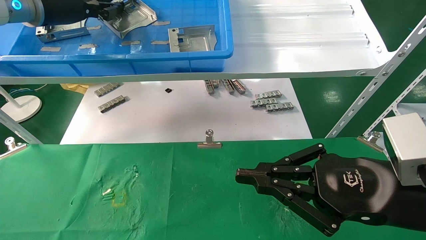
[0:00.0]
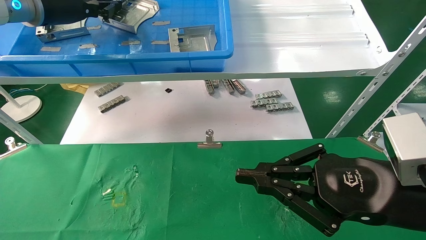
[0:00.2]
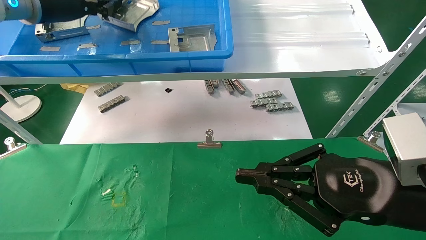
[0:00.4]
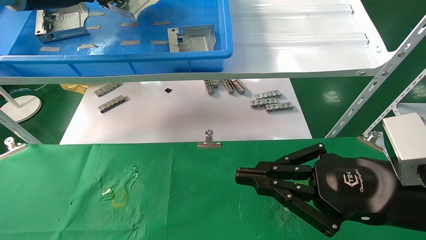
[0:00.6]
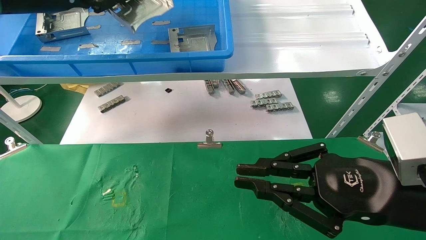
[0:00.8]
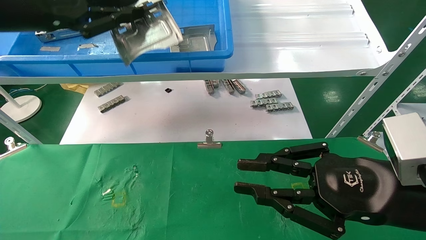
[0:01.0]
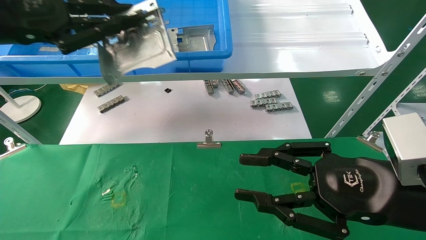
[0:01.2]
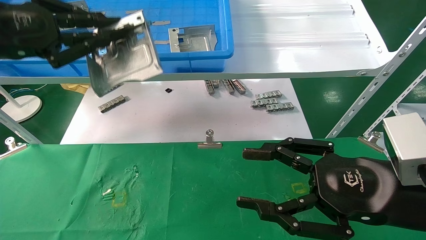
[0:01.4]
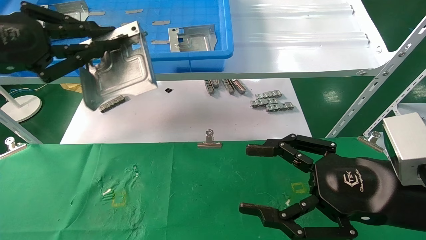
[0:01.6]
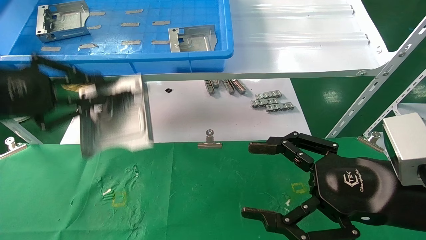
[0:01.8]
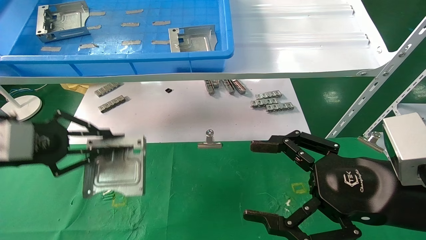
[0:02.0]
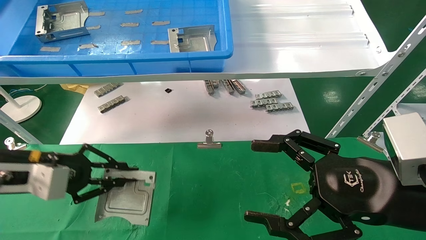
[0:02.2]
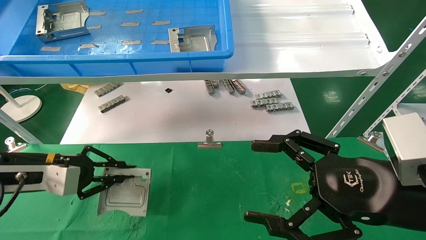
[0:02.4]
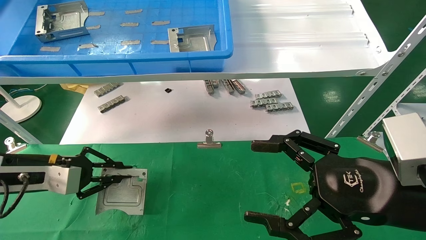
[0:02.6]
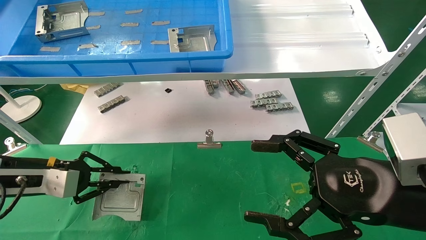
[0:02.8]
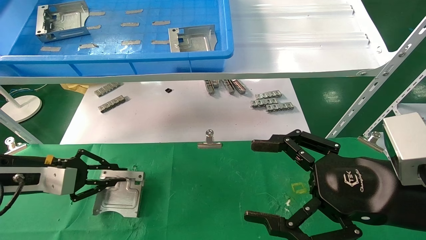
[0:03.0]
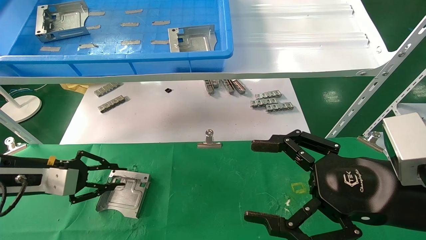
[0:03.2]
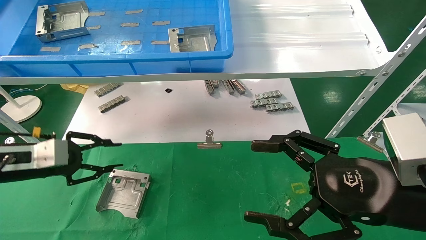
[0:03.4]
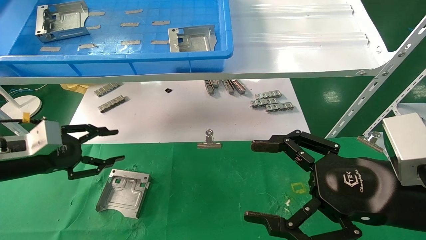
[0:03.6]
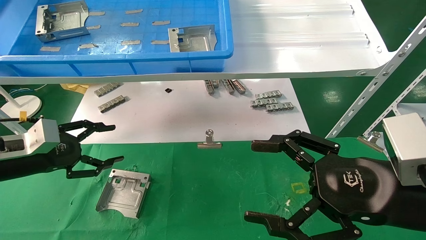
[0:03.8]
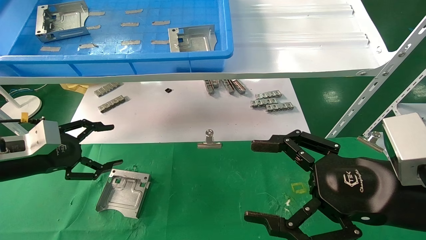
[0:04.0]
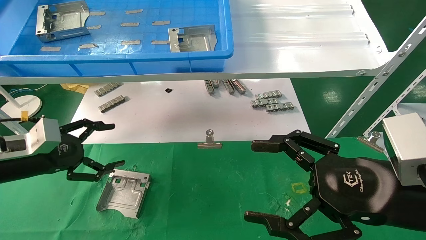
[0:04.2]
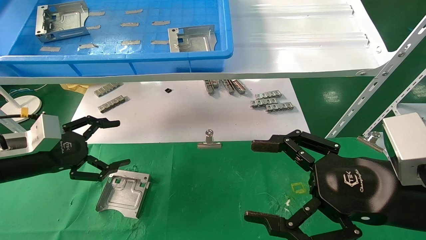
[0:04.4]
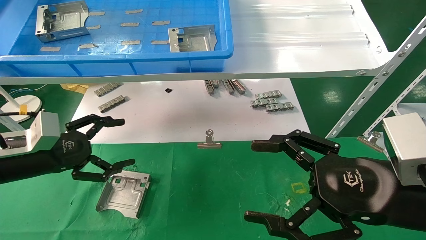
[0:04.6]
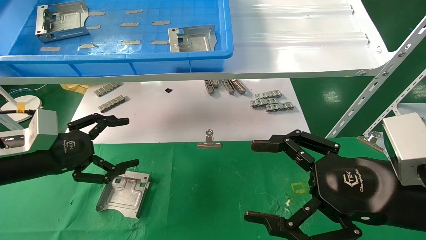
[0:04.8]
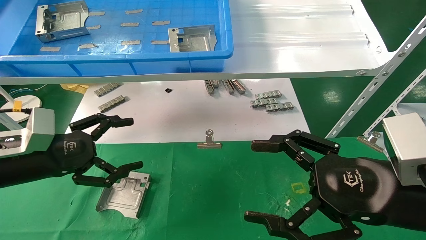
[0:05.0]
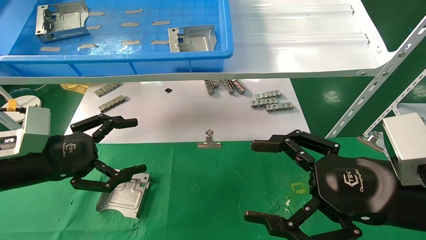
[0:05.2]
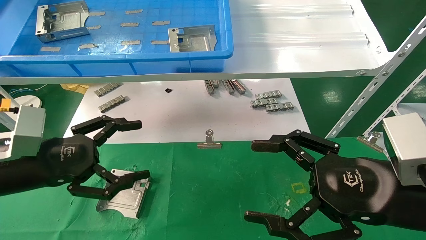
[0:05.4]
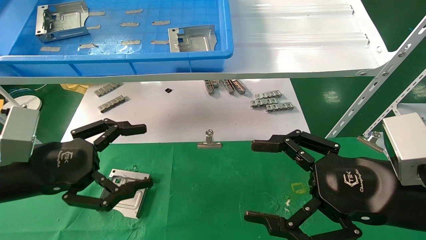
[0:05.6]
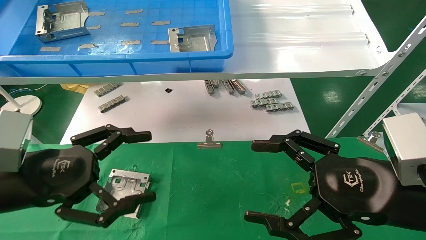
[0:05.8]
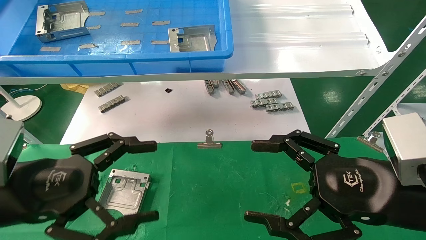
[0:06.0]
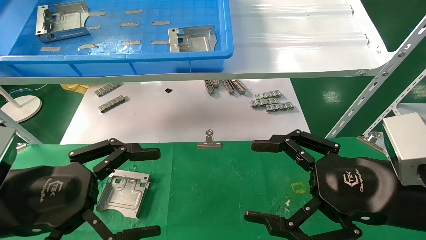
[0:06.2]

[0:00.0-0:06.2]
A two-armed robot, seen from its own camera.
Task of the whole recording: use the mechanical arm to pick up the parts and place them on the table.
Step, 0:00.4 to 0:03.4: Place the hard drive bracket into the box.
0:00.0 to 0:01.6: The right gripper opens up. Meanwhile the left gripper shifts some 20 cm backward and downward.
0:01.6 to 0:03.2: The left gripper shifts about 20 cm downward, while the right gripper opens its fingers.
0:03.2 to 0:04.6: The left gripper opens up.
0:04.6 to 0:06.2: The left gripper heads backward and to the right, covering roughly 15 cm.

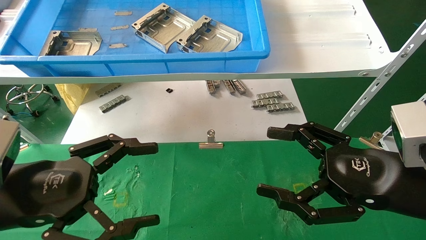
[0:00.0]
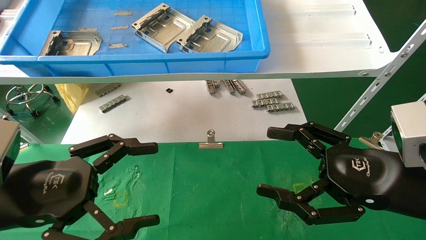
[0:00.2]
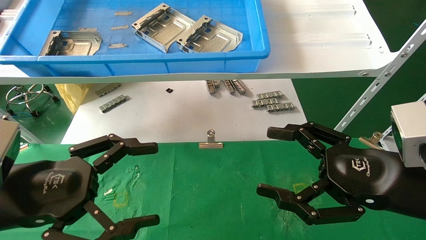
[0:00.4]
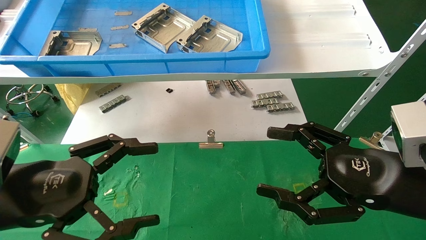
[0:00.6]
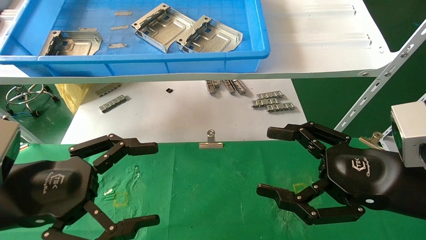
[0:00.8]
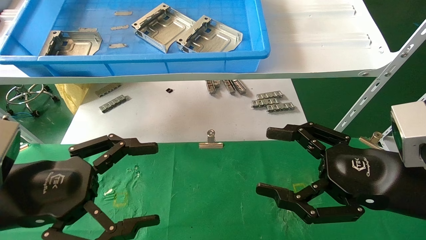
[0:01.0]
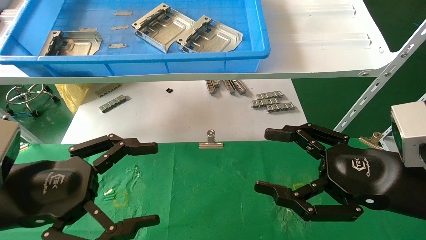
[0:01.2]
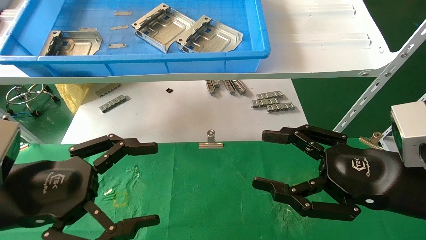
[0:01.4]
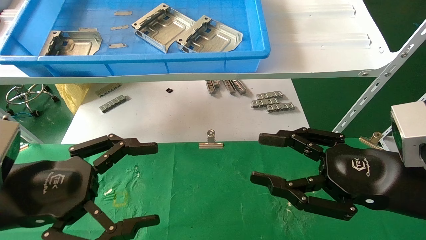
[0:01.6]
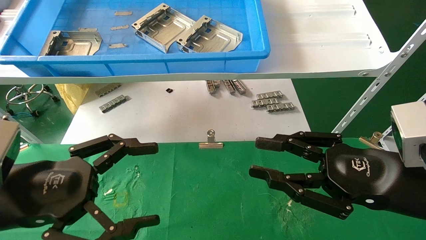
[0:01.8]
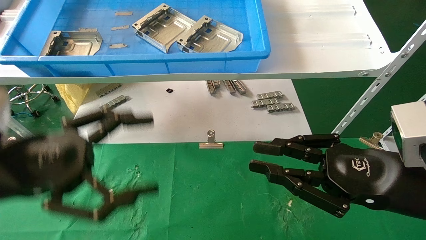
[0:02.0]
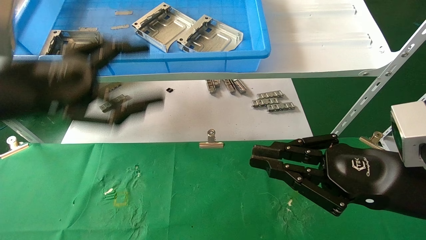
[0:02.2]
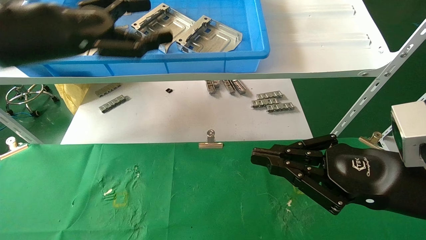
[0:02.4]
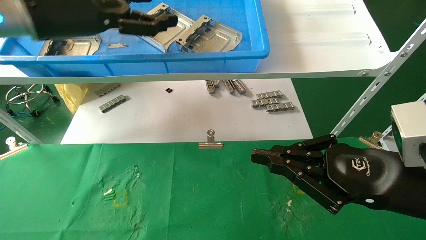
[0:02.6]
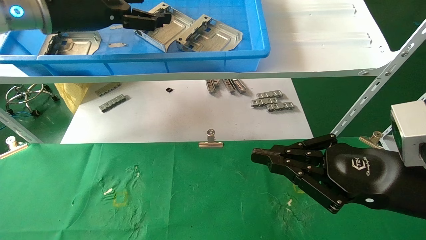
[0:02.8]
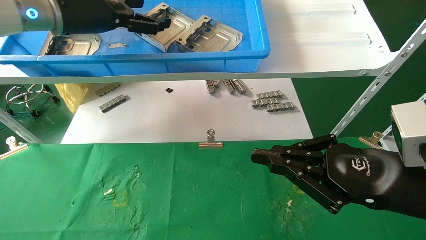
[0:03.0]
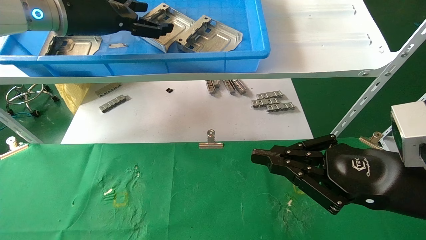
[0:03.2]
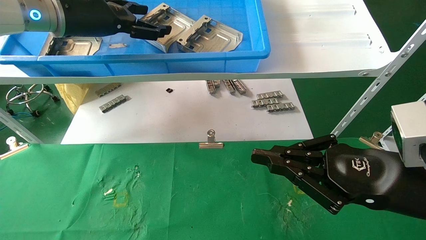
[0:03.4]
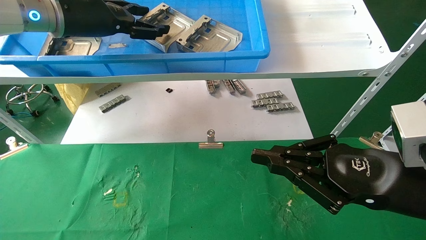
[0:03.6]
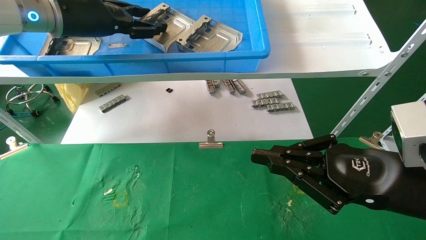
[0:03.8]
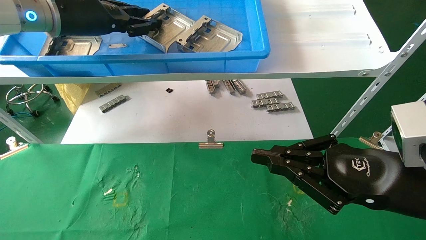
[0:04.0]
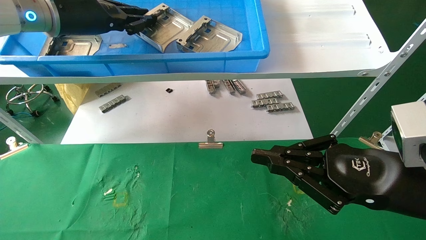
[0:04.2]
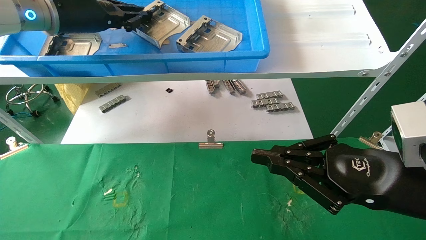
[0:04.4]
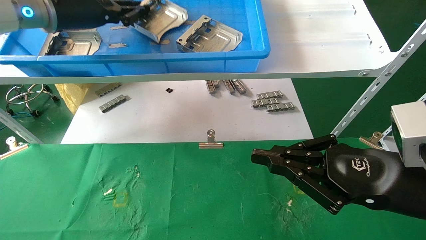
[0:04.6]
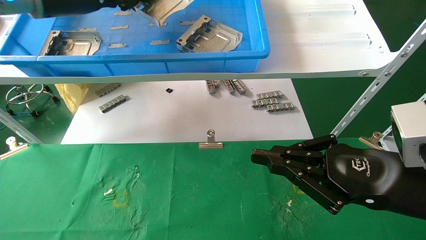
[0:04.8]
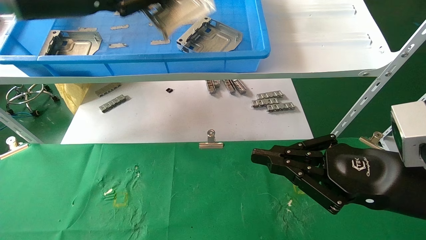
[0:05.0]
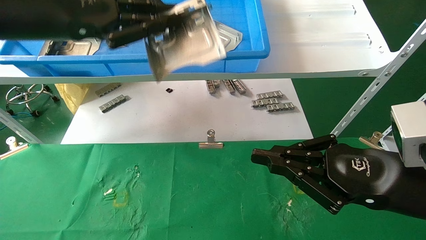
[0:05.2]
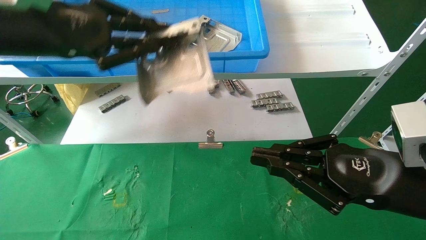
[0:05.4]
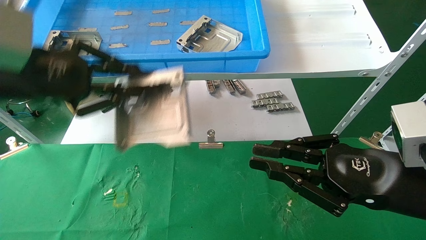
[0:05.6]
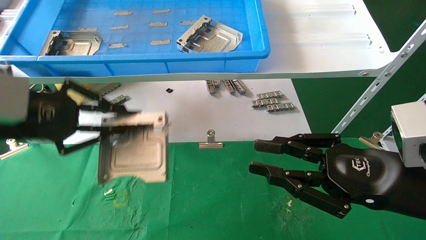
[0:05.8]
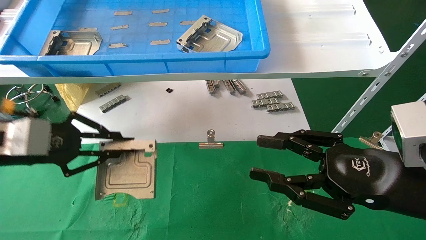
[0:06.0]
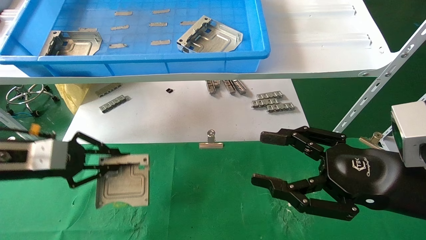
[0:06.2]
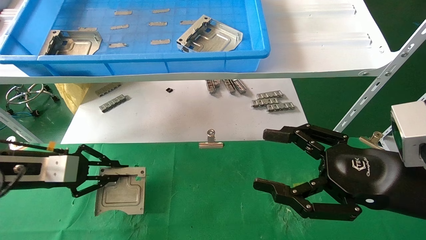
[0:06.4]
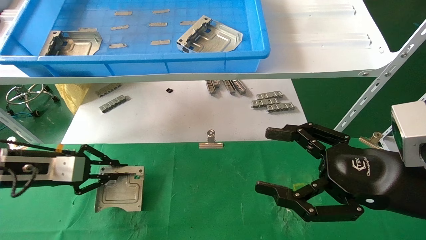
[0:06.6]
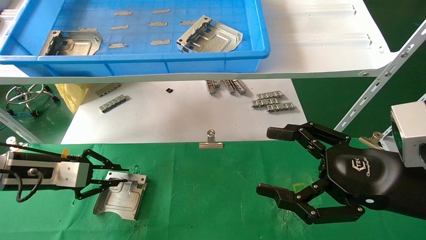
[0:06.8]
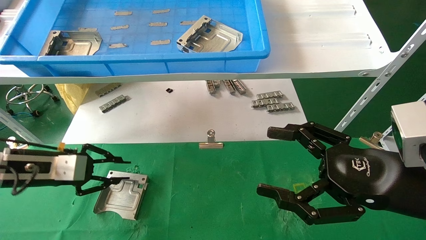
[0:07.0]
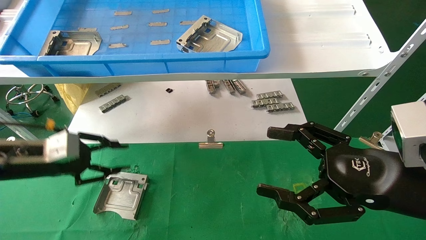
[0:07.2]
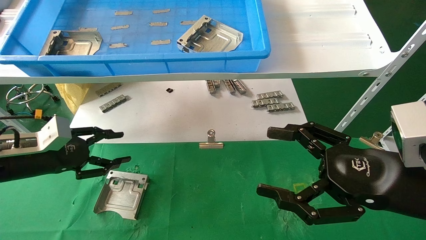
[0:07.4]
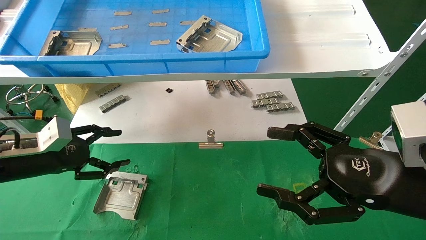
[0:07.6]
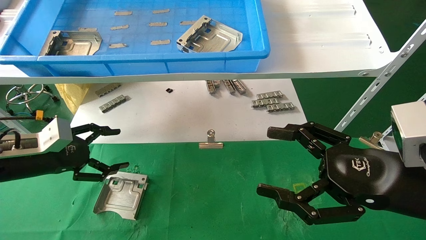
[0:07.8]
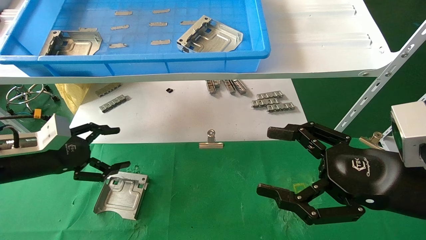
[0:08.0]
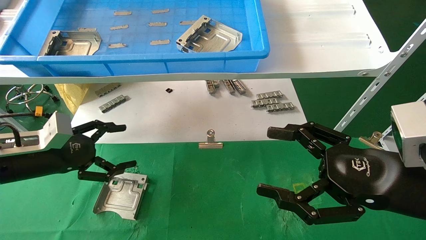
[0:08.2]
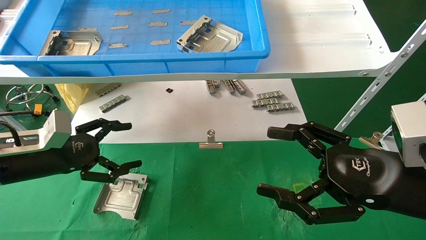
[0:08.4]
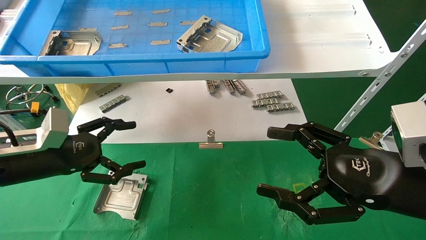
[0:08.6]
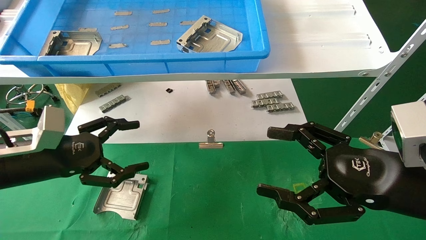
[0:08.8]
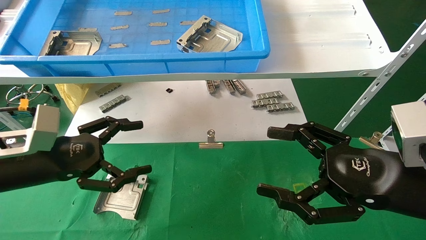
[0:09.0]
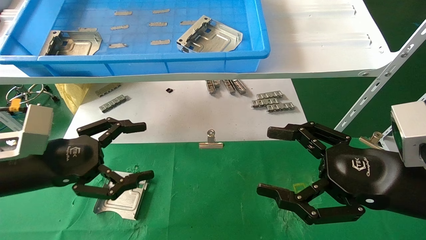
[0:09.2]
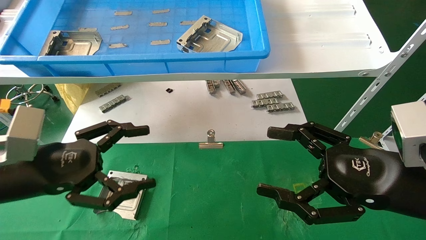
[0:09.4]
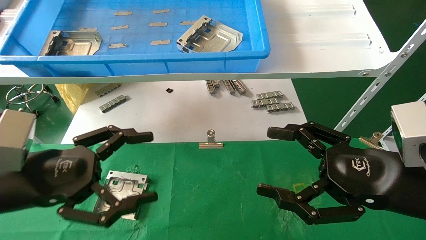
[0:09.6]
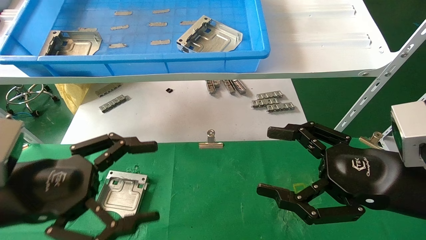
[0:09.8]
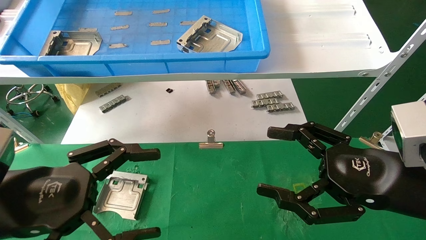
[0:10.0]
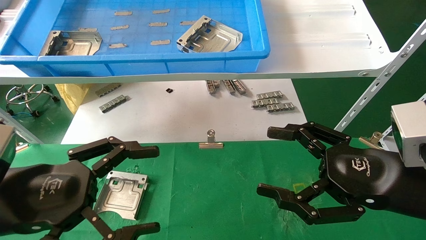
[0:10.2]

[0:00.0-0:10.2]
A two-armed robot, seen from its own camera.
Task of the whole recording: use the mechanical arm to pick up the parts and place them on the table.
Step, 0:02.2 to 0:04.4: Pick up the hard drive bracket from the feeding area.
Step, 0:04.6 to 0:06.8: Place the hard drive bracket into the box.
0:00.0 to 0:01.4: Both grippers stay about where they are.
0:01.4 to 0:03.0: The right gripper closes its fingers; the left gripper moves upward and forward, approximately 30 cm.
0:03.0 to 0:04.4: The left gripper closes its fingers.
0:04.4 to 0:05.8: The left gripper travels backward, downward and to the left by roughly 20 cm.
0:05.8 to 0:07.2: The left gripper heads downward, forward and to the left, covering about 15 cm; the right gripper opens up.
0:07.2 to 0:08.8: The left gripper changes place by roughly 5 cm, and opens up.
0:08.8 to 0:10.2: The left gripper travels backward and to the right by approximately 15 cm.
